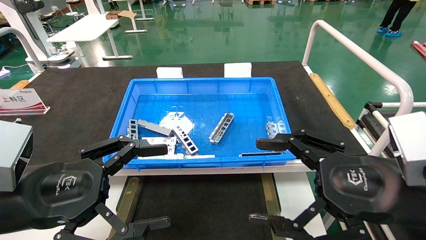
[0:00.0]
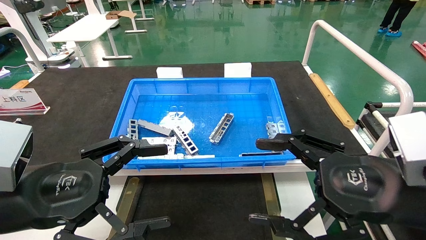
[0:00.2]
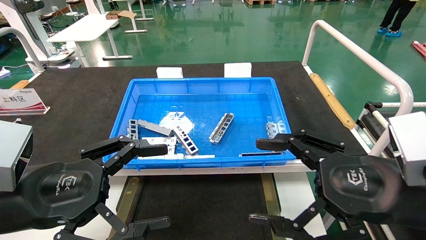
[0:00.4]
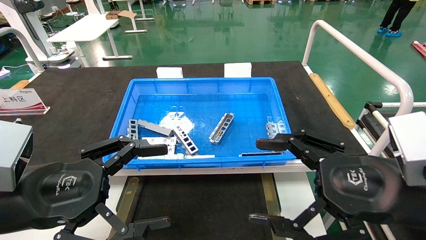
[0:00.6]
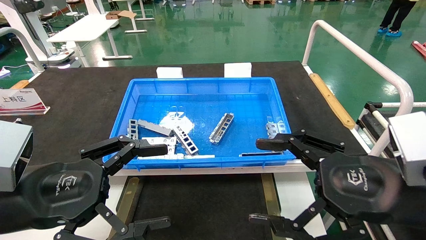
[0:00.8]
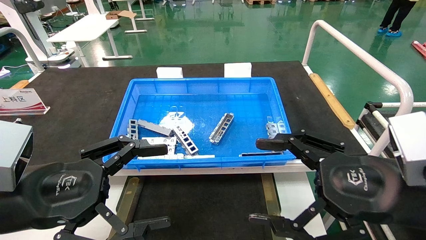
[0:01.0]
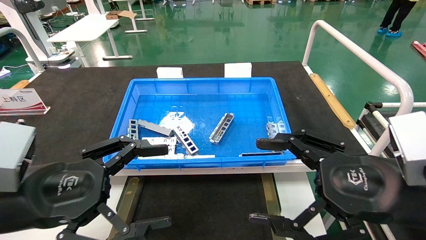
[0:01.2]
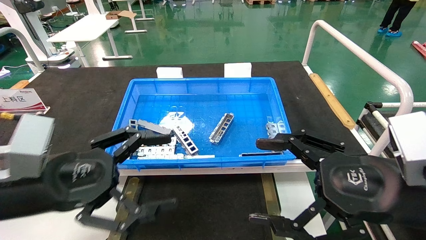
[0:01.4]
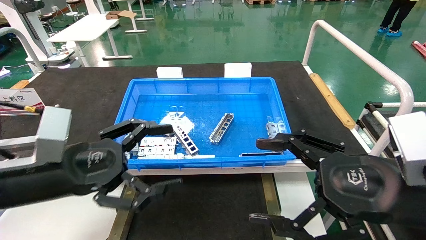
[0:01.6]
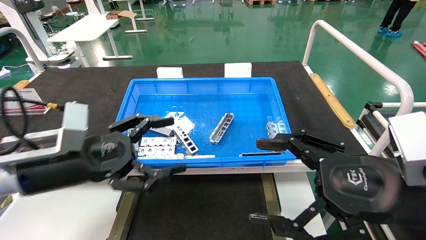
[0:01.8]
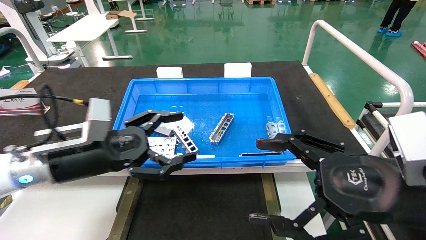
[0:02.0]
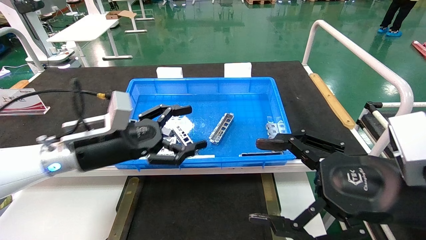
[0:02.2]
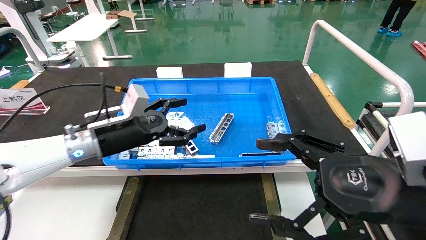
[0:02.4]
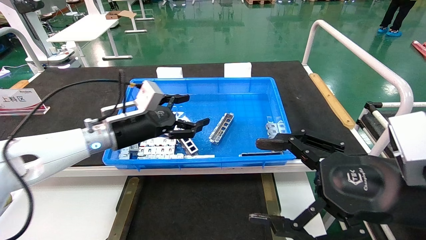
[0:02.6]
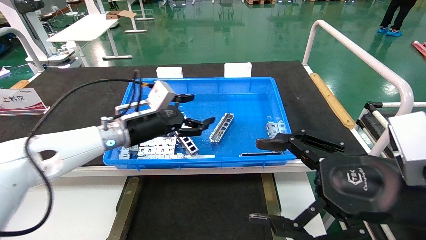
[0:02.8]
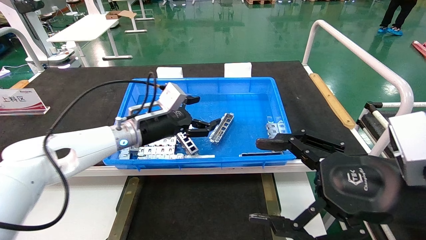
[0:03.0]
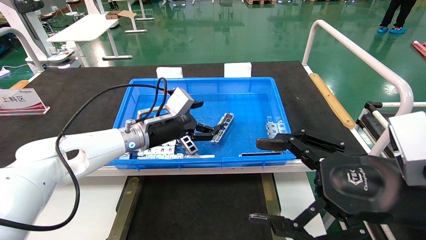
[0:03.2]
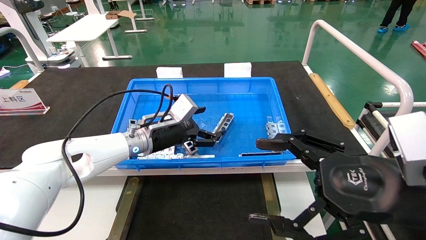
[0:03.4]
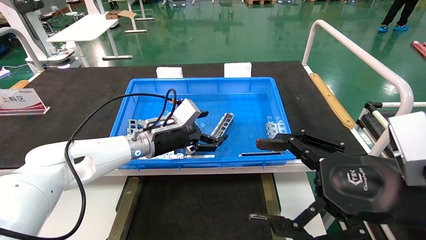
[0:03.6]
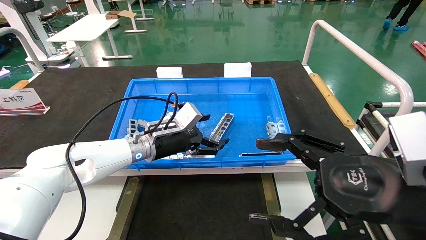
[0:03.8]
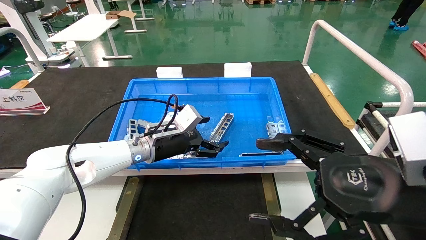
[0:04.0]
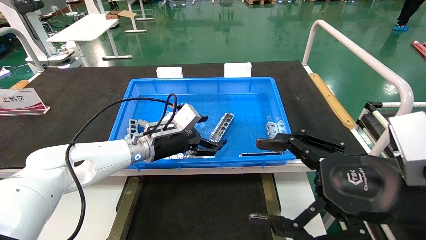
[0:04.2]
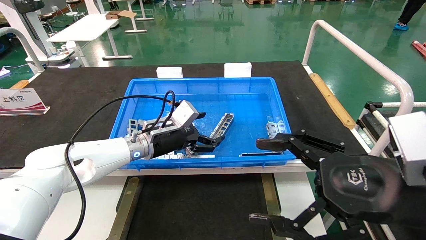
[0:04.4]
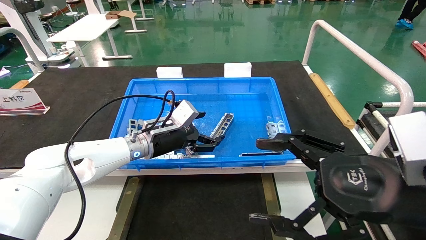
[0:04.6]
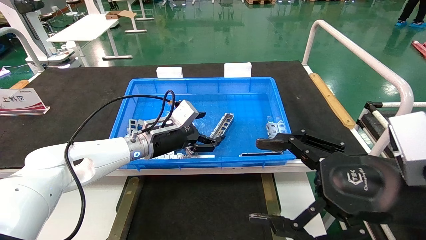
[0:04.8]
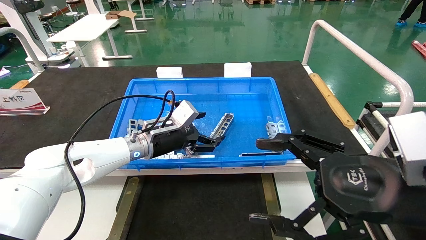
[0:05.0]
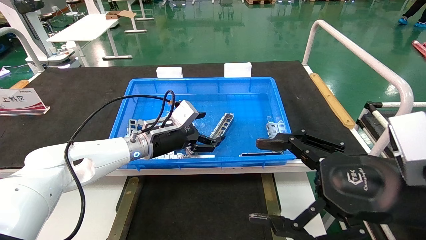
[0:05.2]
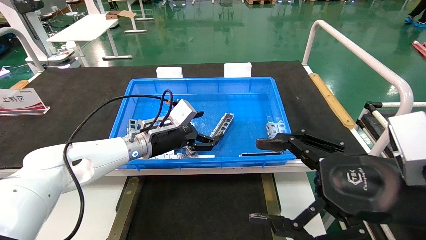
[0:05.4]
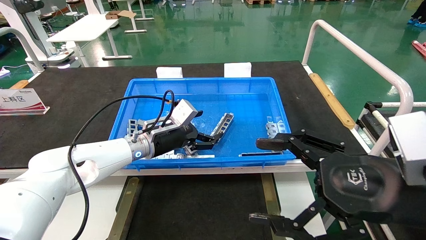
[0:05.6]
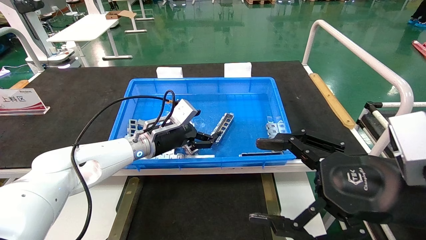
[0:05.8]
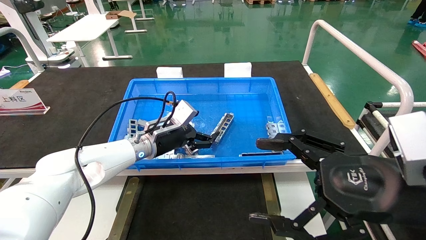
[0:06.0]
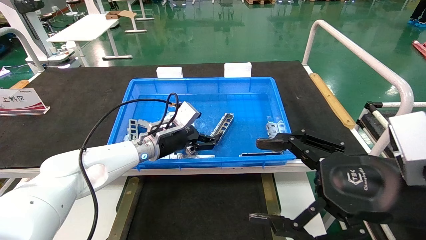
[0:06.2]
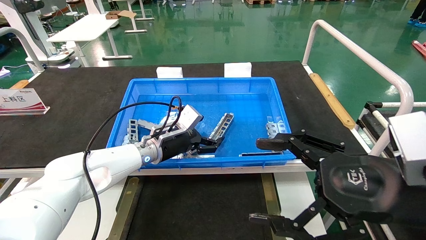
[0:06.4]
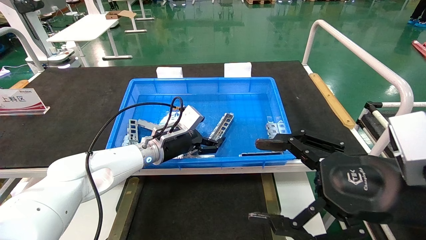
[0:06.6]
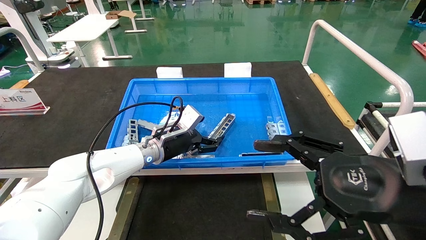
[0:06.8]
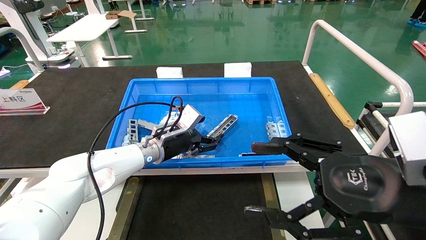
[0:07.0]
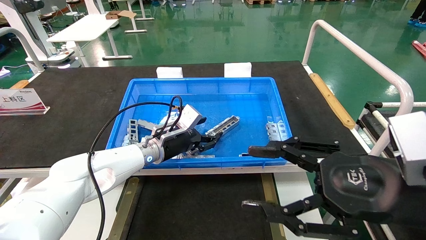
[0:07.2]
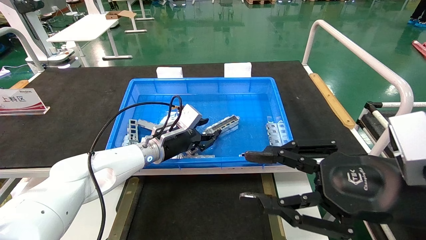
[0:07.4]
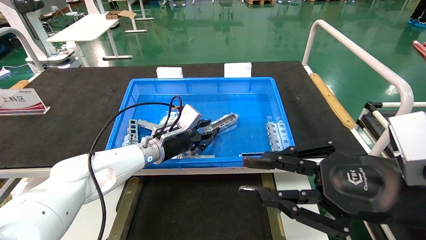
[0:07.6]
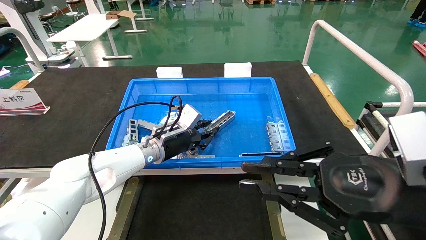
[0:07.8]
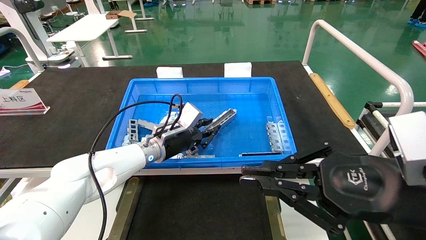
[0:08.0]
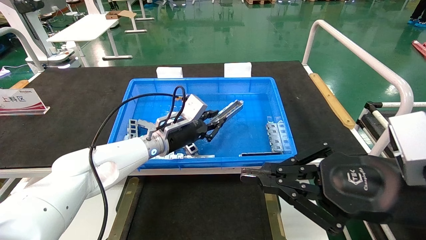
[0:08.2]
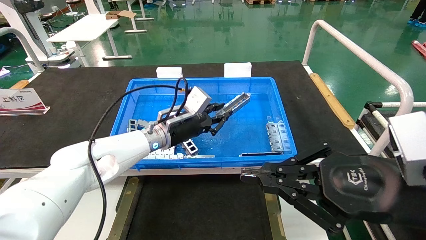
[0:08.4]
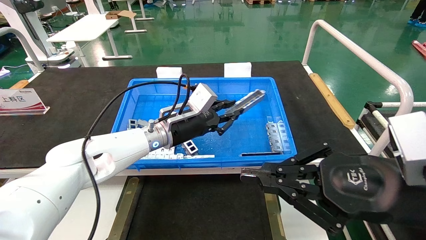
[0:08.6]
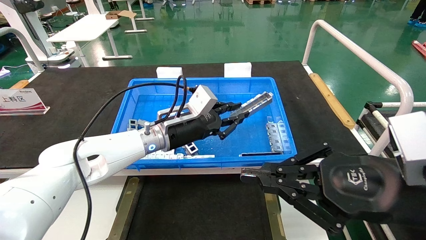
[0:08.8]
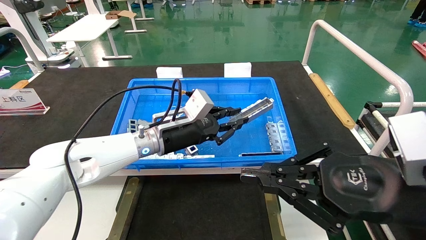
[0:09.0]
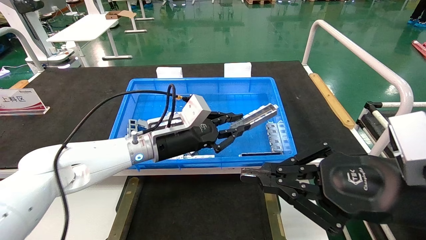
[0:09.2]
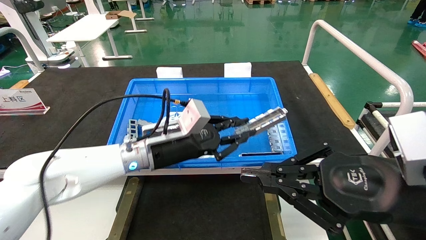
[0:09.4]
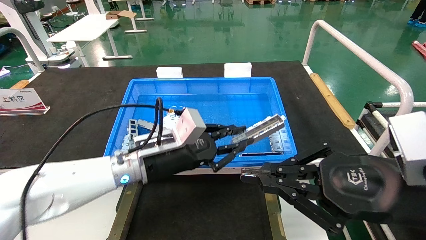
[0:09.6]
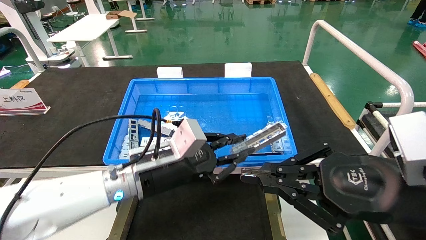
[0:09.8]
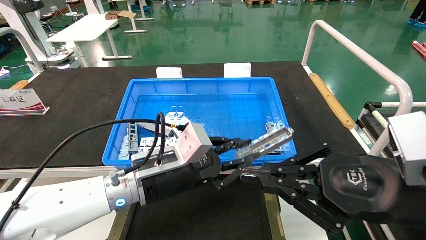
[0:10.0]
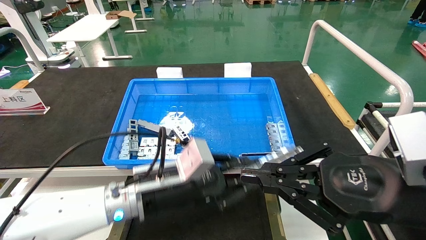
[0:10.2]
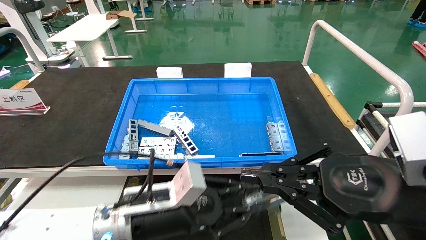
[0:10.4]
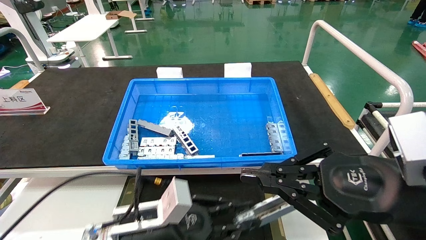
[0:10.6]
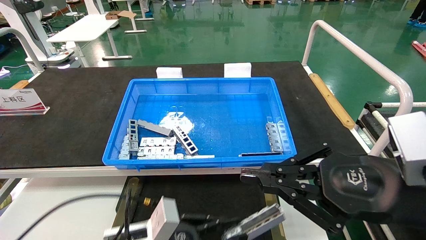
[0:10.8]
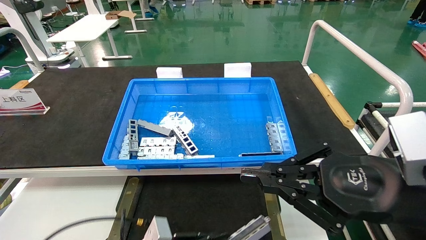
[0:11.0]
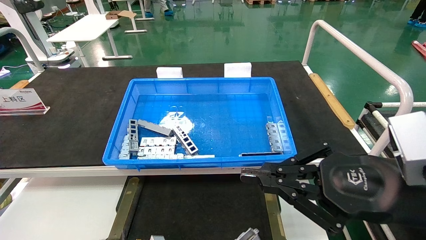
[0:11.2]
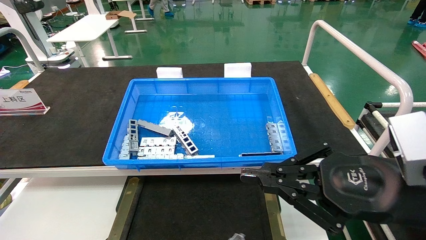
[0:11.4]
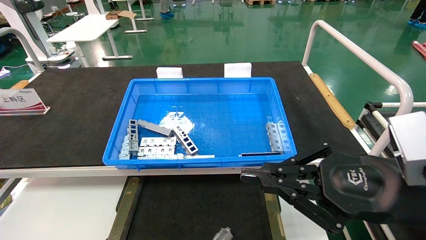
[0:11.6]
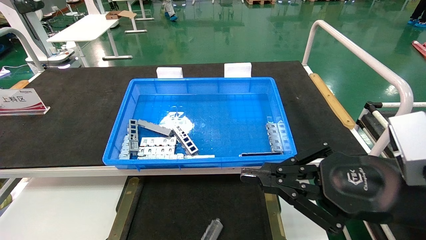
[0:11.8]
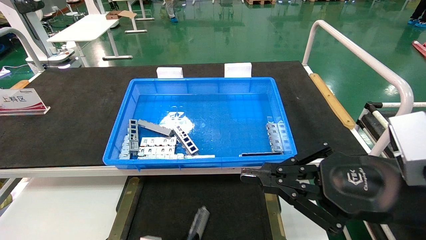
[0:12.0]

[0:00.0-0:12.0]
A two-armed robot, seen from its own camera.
Task of the whole recording: Grasp the part with one hand and place it on the black container.
Step, 0:01.4 to 0:07.8: Pick up the front USB bracket from the feeding area.
0:00.0 to 0:01.6: The left gripper is displaced forward by some 5 cm.
0:01.6 to 0:03.0: The left gripper shifts approximately 25 cm forward and to the right.
0:03.0 to 0:06.0: There are only small adjustments of the grippers.
0:06.0 to 0:07.6: The right gripper closes. Meanwhile the left gripper closes up.
0:07.6 to 0:09.0: The left gripper heads backward, covering roughly 5 cm; the right gripper closes.
0:09.0 to 0:10.4: The left gripper shifts some 15 cm backward and downward.
0:10.4 to 0:12.0: The left gripper shifts roughly 25 cm downward.

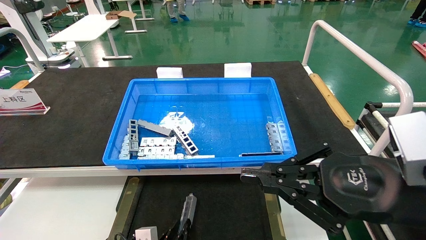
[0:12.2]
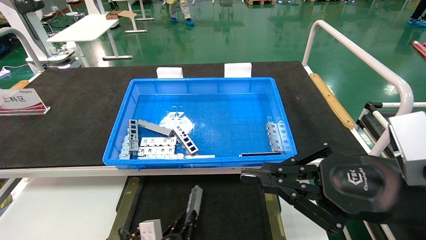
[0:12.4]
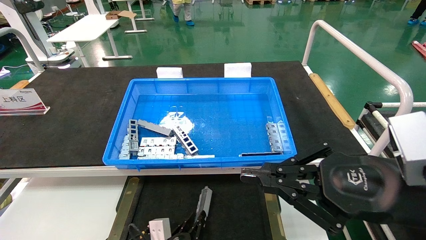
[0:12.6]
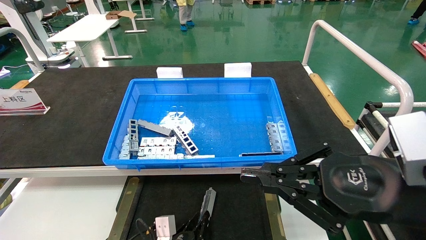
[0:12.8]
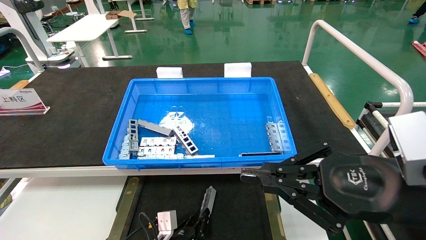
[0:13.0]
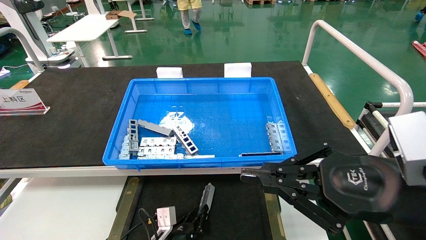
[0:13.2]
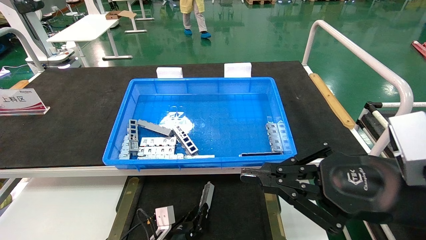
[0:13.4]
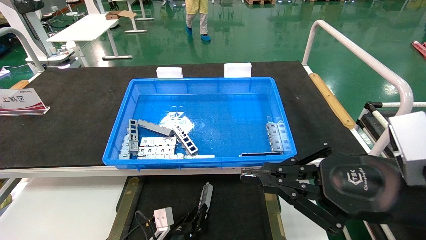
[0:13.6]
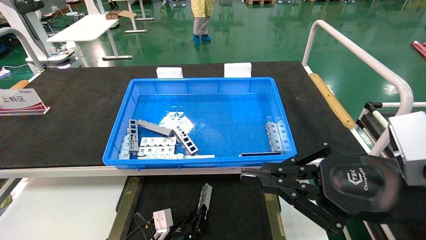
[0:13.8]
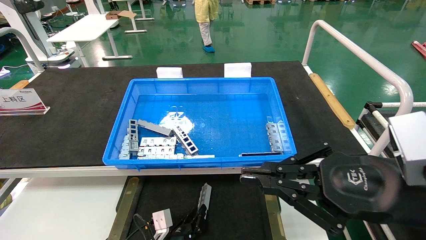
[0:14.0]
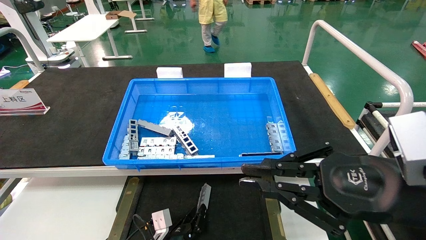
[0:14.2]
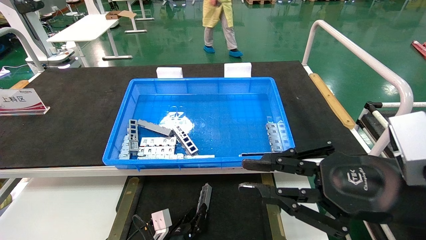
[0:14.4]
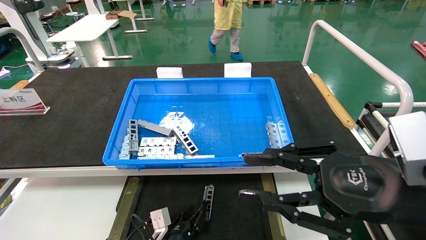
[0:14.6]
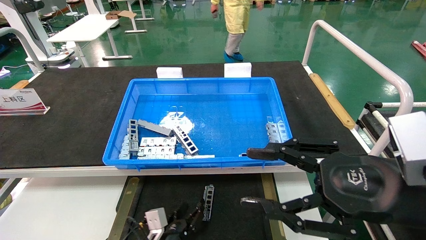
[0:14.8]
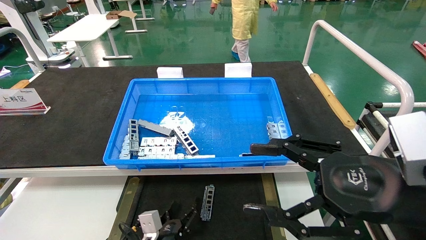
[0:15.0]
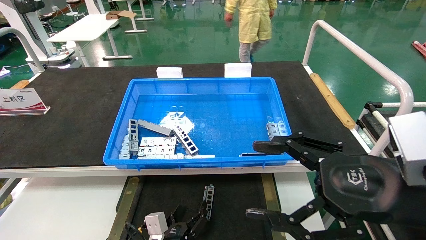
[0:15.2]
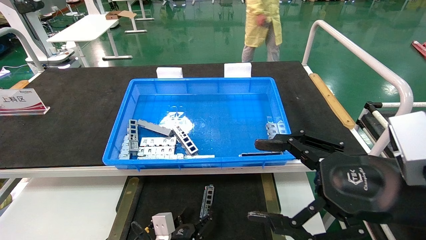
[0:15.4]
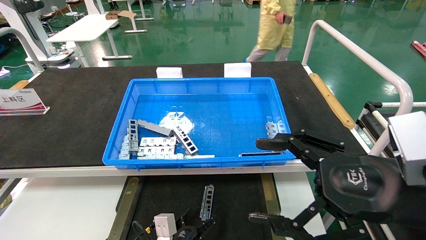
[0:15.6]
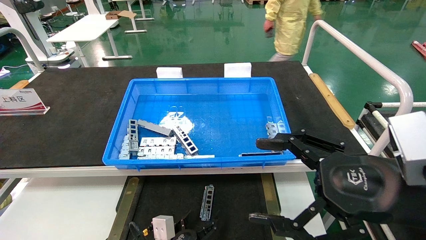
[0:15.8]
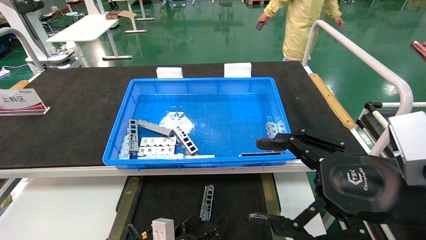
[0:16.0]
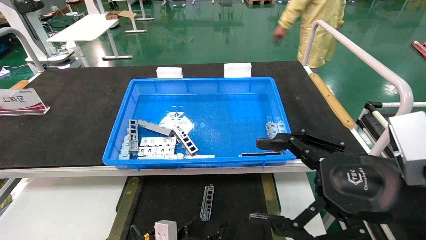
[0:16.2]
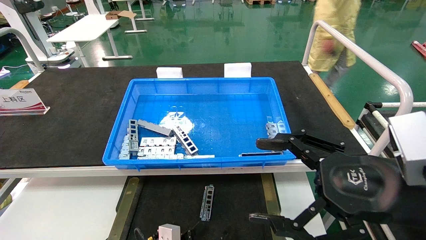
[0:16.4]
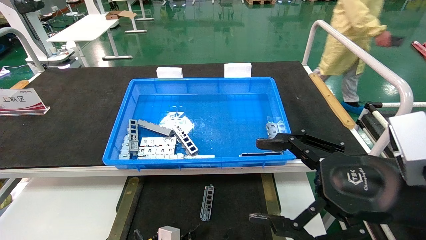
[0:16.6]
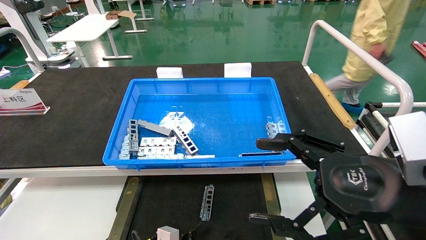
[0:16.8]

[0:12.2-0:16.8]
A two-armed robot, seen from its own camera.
Task of the whole recording: Grasp the part with one hand and place it on the black container.
Step, 0:12.2 to 0:14.6: Place the front USB bracket into the box.
0:12.2 to 0:13.8: The left gripper is displaced forward by about 5 cm.
0:13.8 to 0:15.2: The left gripper opens up, while the right gripper opens up.
0:15.2 to 0:16.8: The left gripper heads backward, covering some 10 cm.
